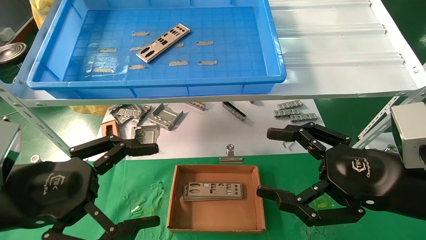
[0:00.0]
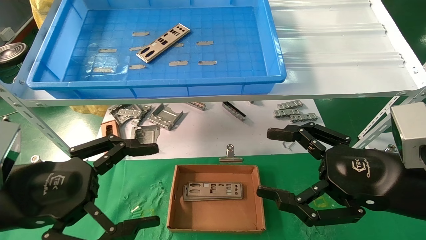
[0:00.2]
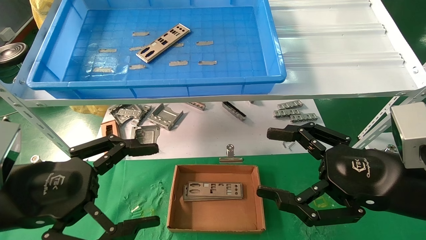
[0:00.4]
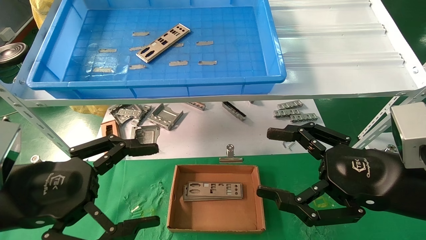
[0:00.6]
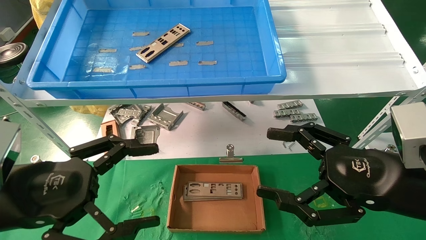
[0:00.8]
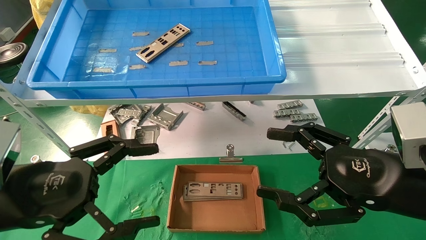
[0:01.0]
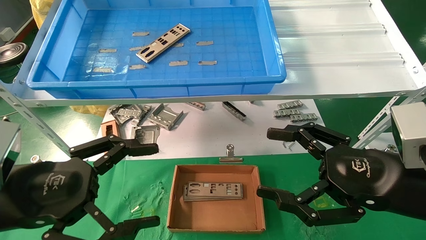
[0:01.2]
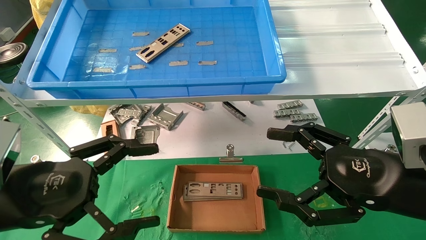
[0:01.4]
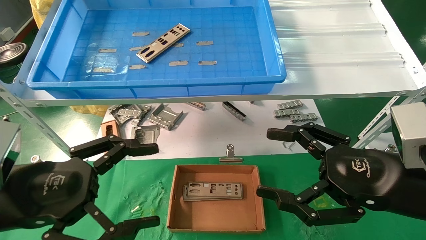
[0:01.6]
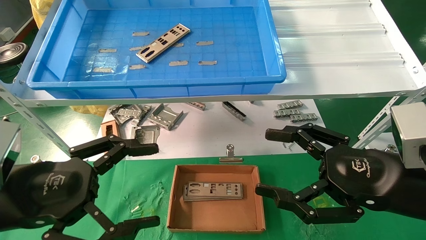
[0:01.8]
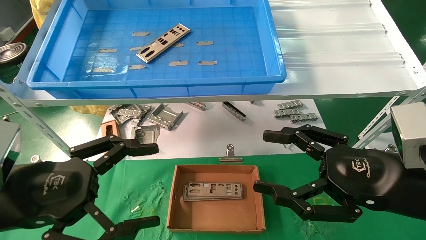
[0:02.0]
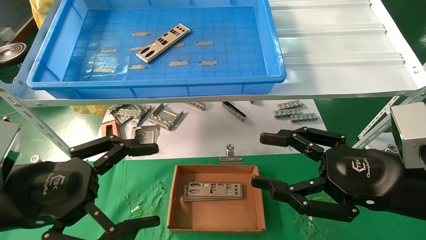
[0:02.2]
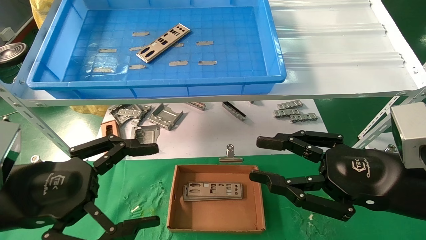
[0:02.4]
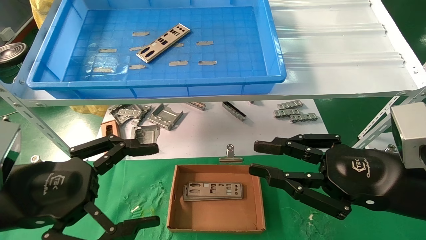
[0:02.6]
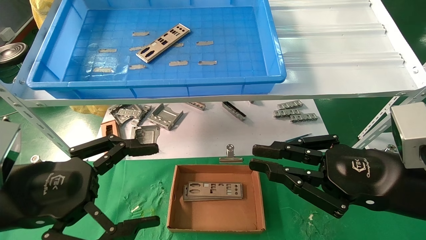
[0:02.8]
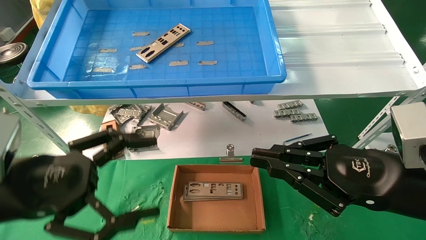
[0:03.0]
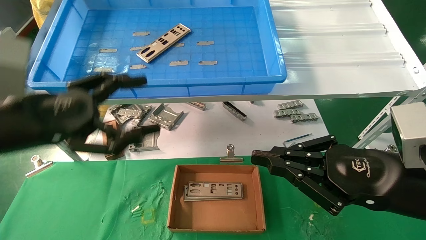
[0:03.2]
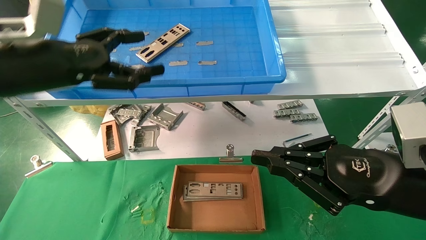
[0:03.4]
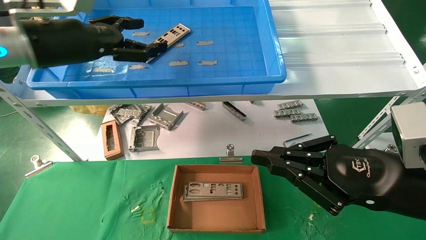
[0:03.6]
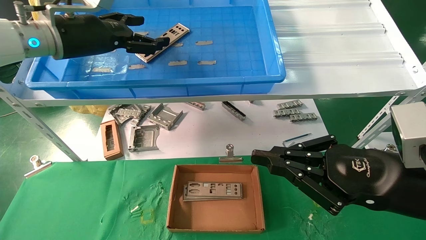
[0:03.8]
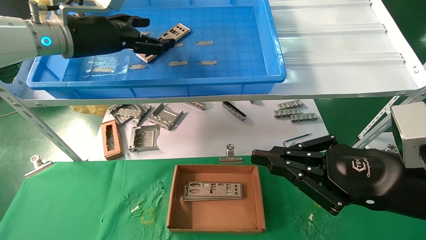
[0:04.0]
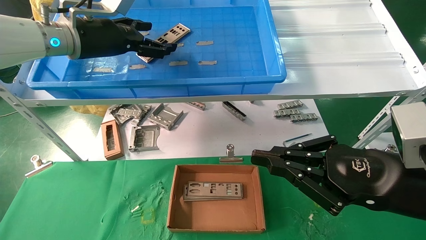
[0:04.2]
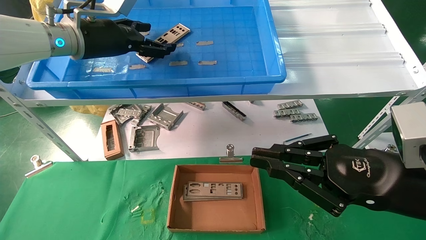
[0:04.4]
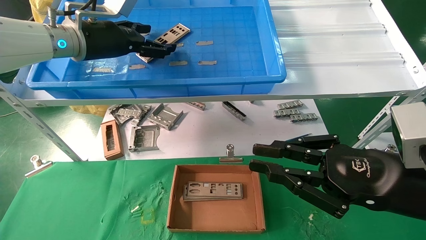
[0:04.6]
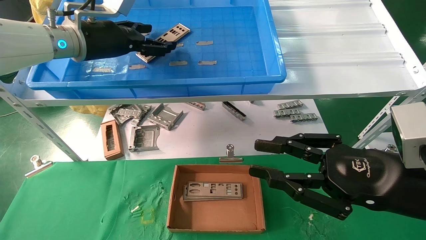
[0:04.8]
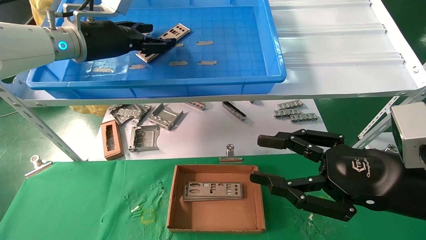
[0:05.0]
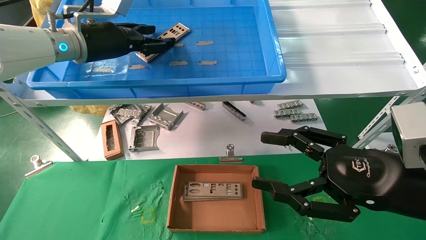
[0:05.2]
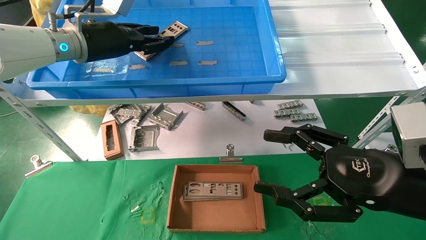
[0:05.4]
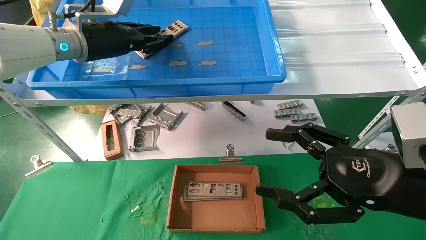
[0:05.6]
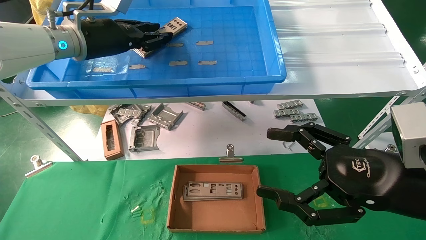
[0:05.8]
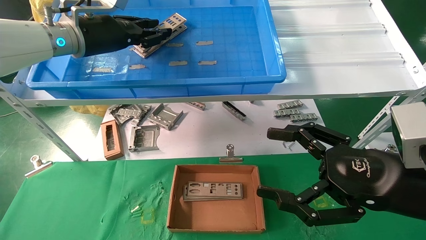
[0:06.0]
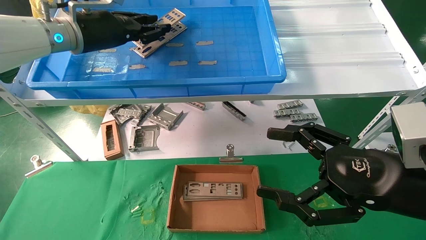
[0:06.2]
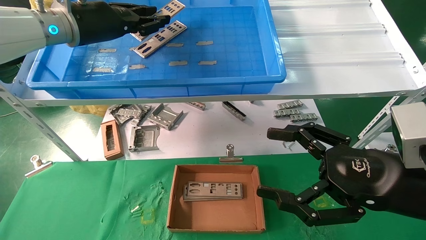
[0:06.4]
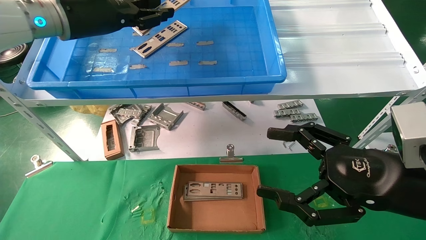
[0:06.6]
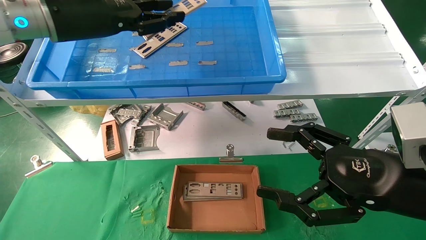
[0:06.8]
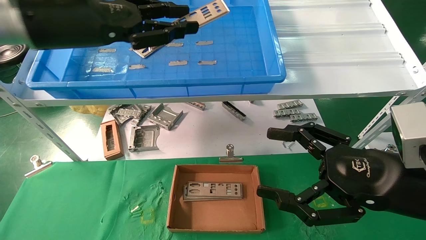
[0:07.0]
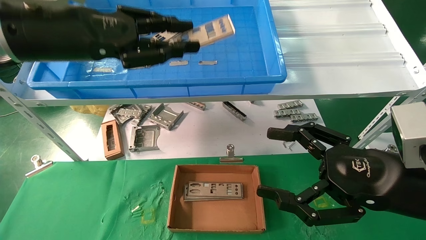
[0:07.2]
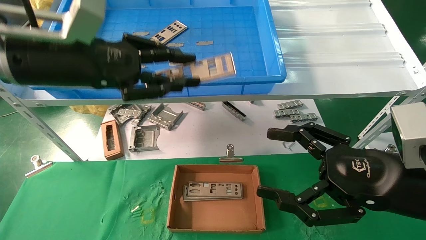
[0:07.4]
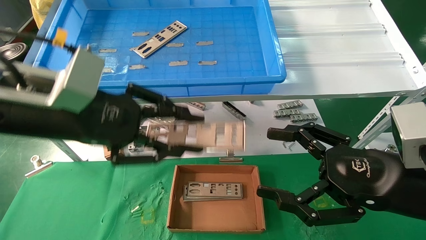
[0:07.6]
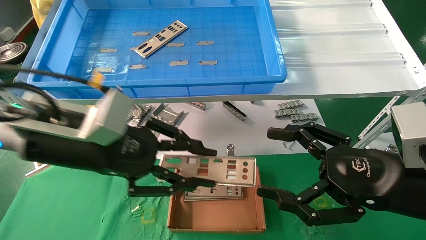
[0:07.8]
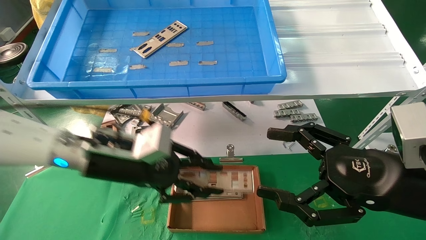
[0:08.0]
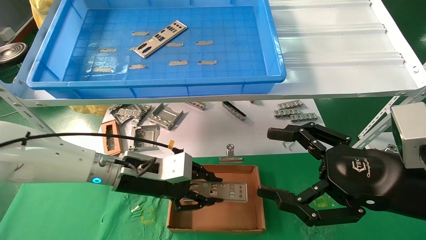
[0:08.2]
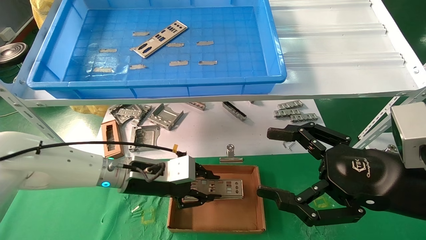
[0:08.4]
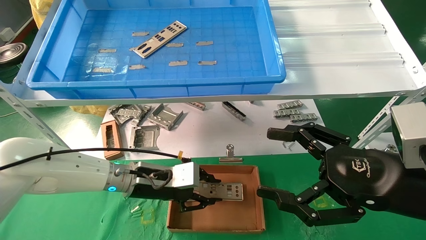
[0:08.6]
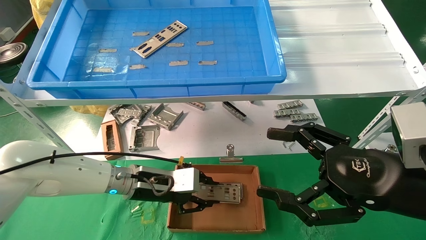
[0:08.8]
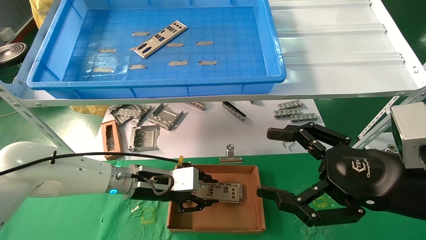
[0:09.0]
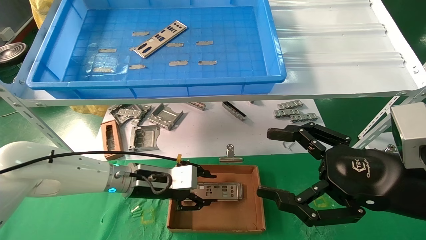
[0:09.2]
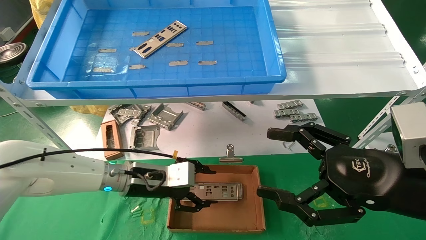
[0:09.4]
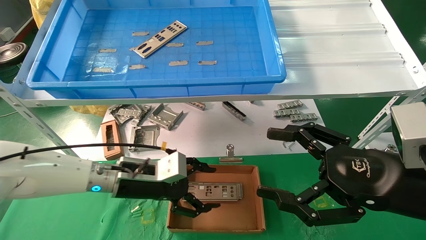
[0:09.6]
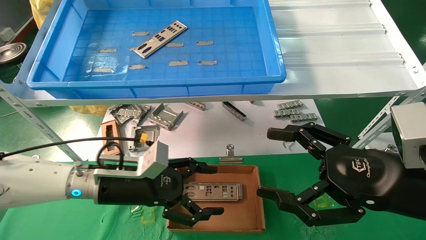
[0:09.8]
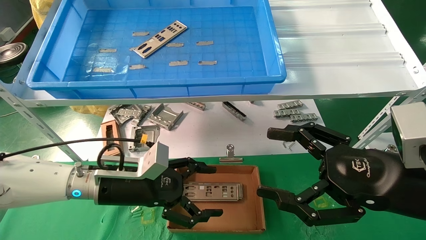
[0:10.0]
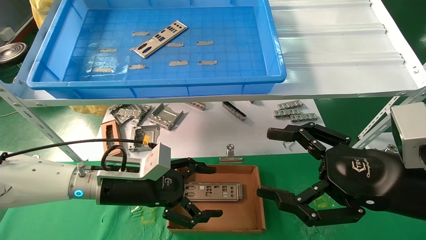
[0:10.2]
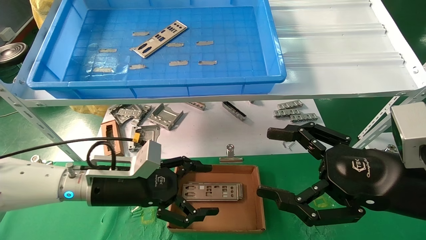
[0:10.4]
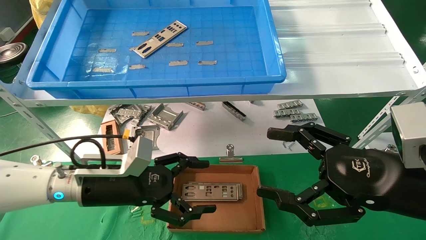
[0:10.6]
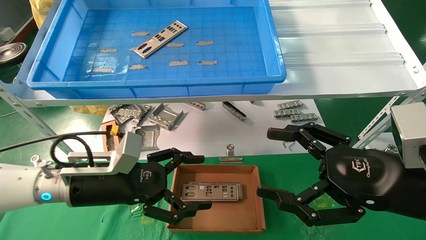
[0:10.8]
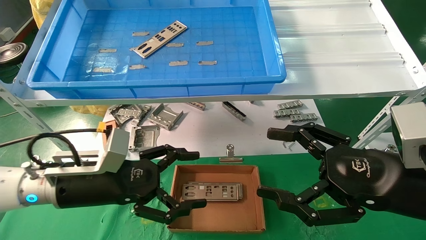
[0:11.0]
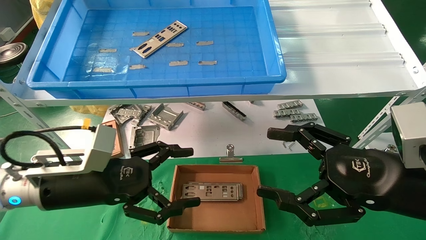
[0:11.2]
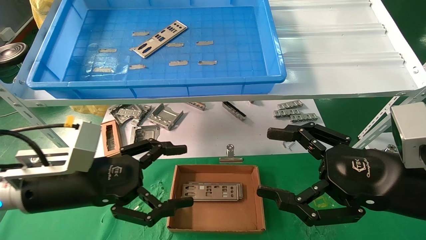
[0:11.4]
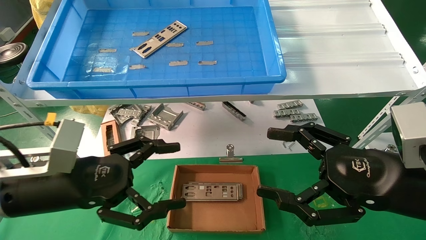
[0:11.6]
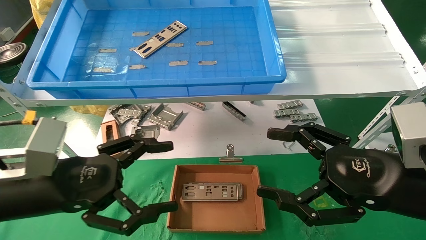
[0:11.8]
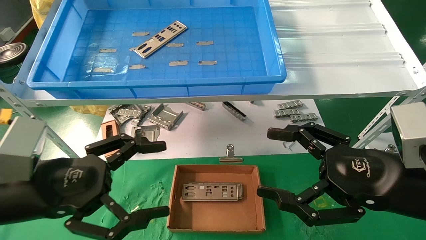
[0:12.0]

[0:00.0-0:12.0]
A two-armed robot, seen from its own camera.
Task of the whole recording: pick up the parts on the tray and put them in the cardboard box.
Step, 0:03.4 to 0:05.6: Pick up the IO bracket from the container box.
Step, 0:05.8 to 0:09.2: Place the IO bracket into the ingredient slot.
0:00.0 to 0:01.6: Both grippers stay about where they are.
0:01.6 to 0:03.0: The right gripper closes.
0:03.0 to 0:04.4: The left gripper travels forward and upward by approximately 25 cm.
0:04.4 to 0:06.0: The left gripper closes up, while the right gripper opens its fingers.
0:06.0 to 0:07.6: The left gripper heads backward and downward, covering some 15 cm.
0:07.6 to 0:09.0: The left gripper travels downward and forward by about 25 cm.
0:09.0 to 0:10.4: The left gripper is displaced backward by roughly 5 cm, and opens up.
0:10.4 to 0:12.0: The left gripper shifts approximately 15 cm backward, to the left and upward.

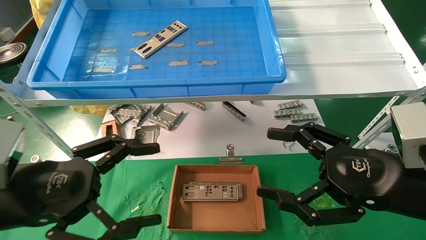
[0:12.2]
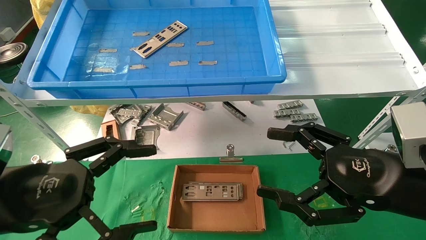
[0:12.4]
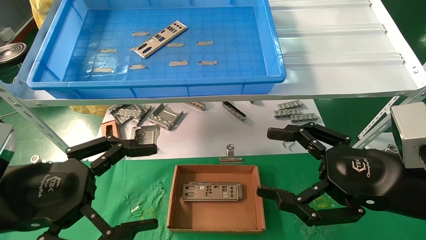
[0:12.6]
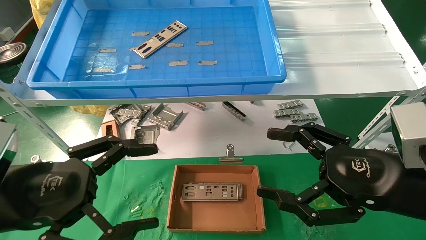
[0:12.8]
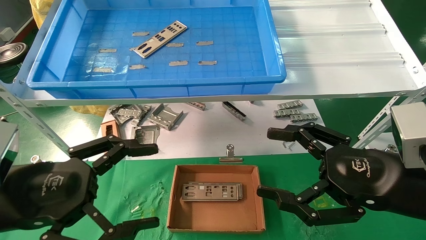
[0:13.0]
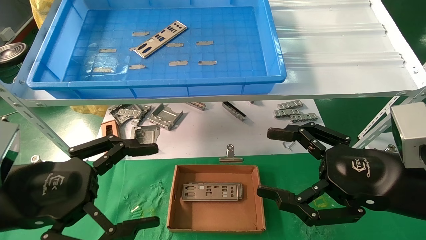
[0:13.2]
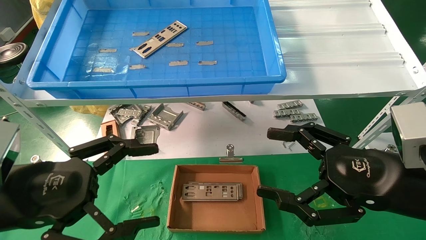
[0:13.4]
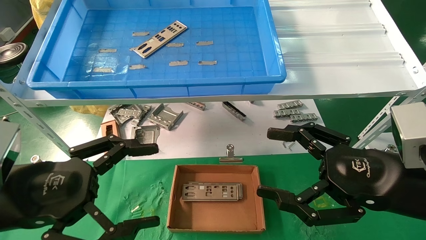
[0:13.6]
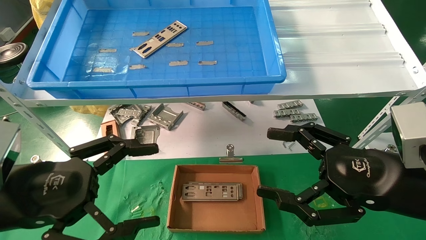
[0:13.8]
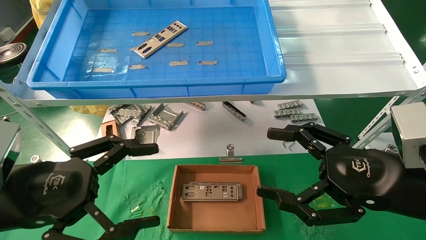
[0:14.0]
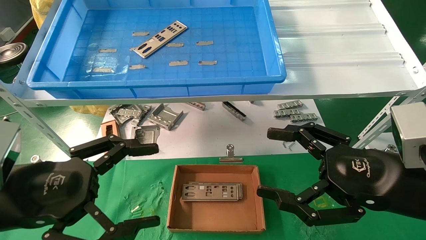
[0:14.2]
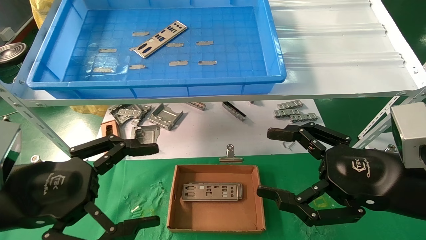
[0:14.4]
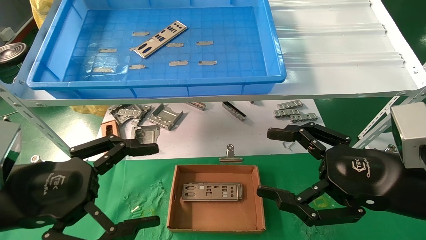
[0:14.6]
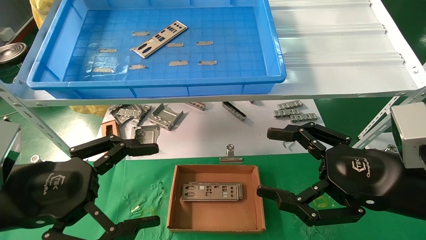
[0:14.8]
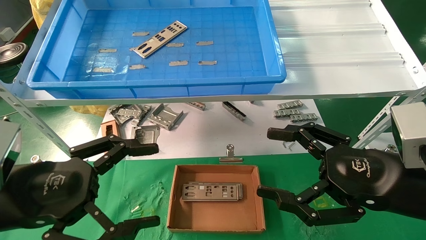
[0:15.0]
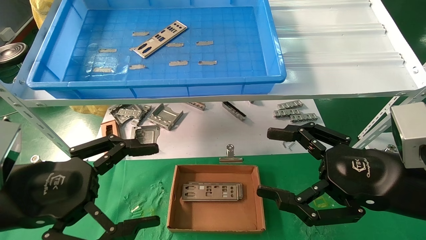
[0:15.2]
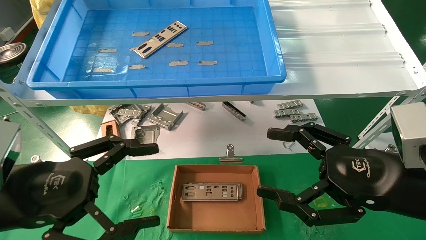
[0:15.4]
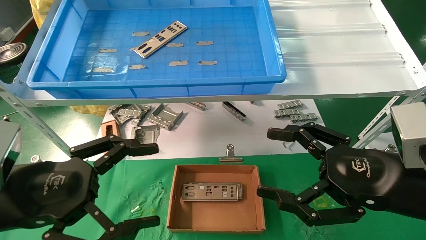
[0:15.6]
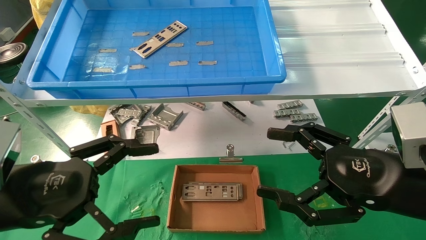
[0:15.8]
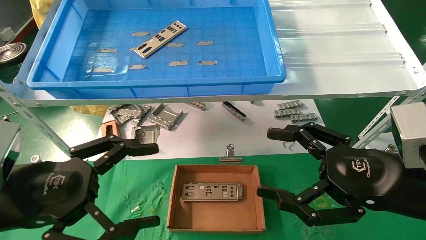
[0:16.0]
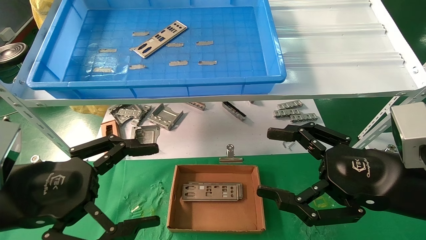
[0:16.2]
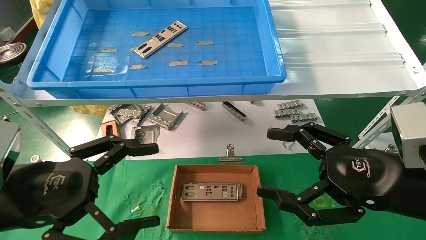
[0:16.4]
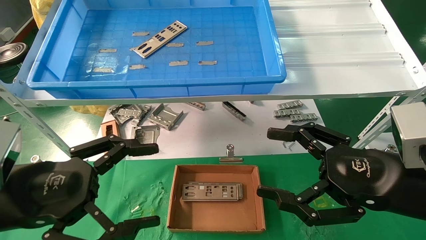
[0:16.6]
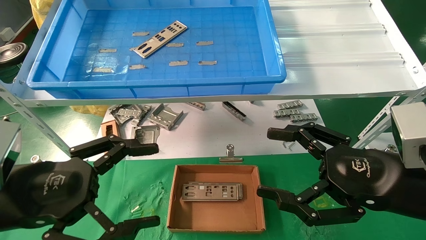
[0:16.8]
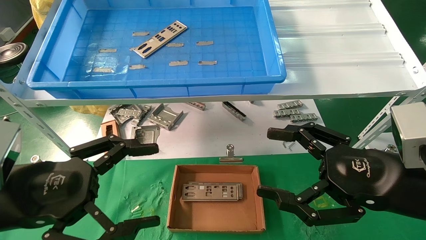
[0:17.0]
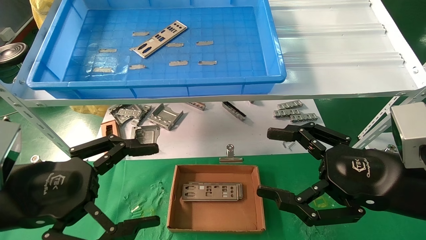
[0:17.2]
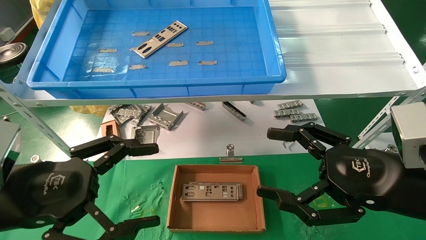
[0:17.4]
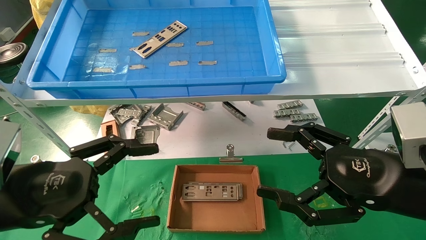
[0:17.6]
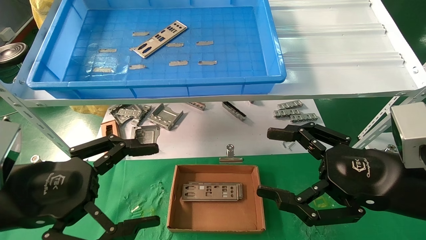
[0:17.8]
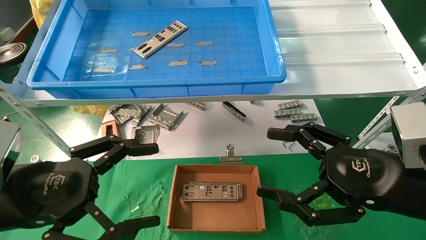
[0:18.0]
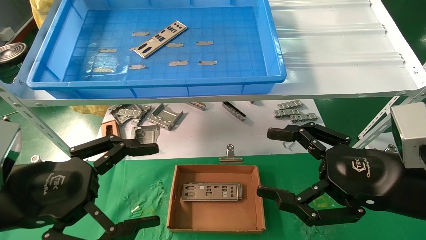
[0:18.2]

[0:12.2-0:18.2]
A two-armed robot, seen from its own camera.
Task of the whole recording: pick up the parts on the tray and put them in the cardboard box.
0:12.2 to 0:18.2: The two grippers keep their place.
